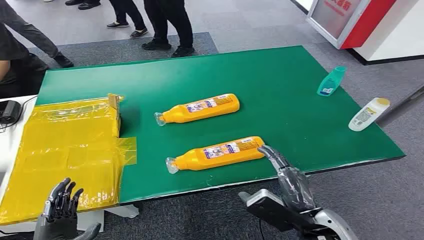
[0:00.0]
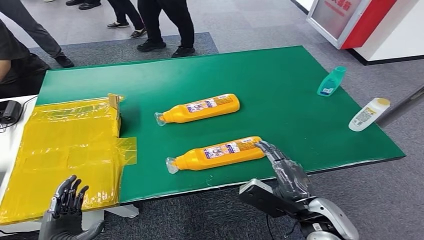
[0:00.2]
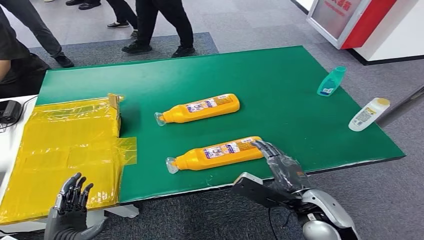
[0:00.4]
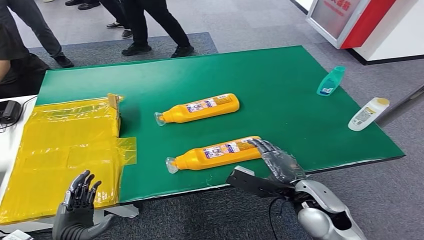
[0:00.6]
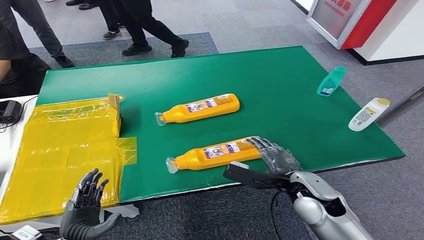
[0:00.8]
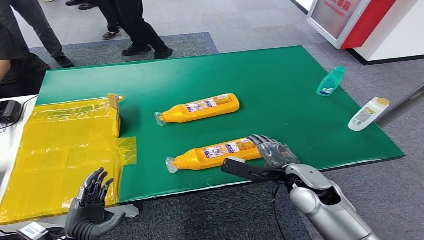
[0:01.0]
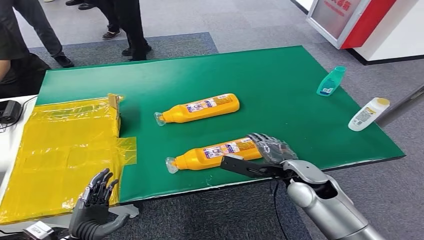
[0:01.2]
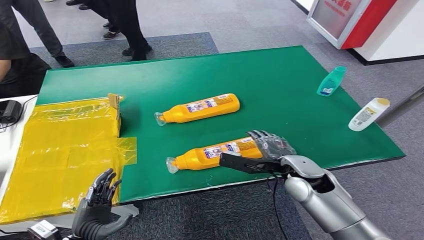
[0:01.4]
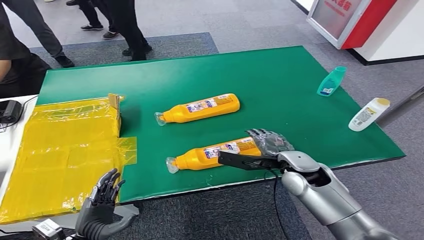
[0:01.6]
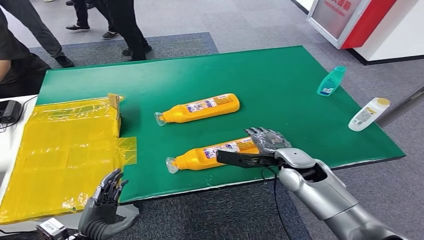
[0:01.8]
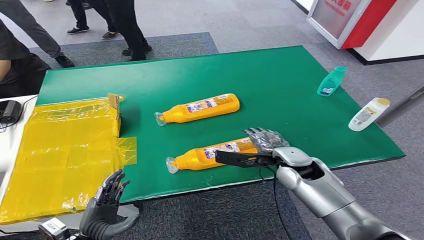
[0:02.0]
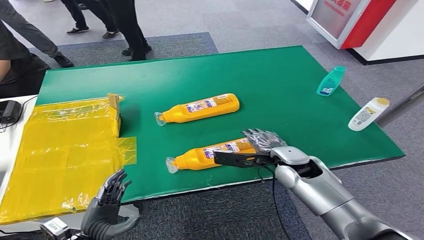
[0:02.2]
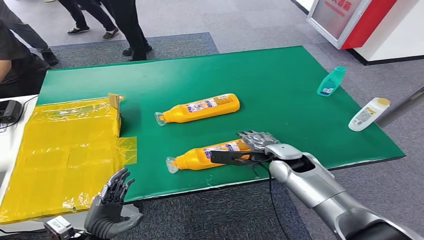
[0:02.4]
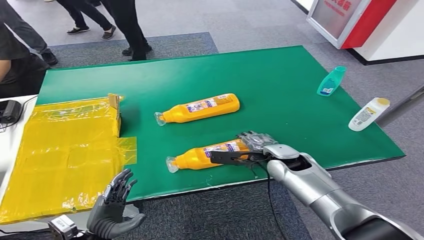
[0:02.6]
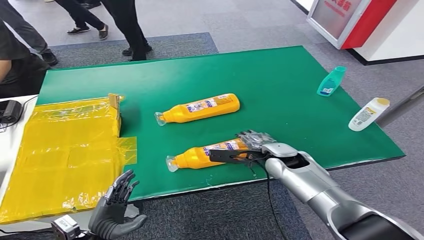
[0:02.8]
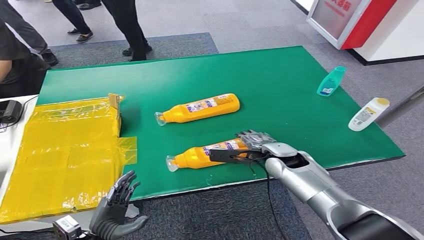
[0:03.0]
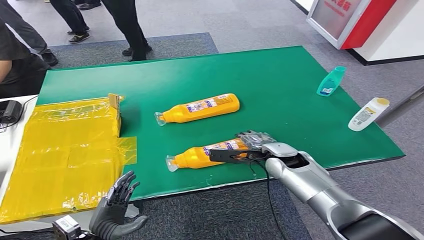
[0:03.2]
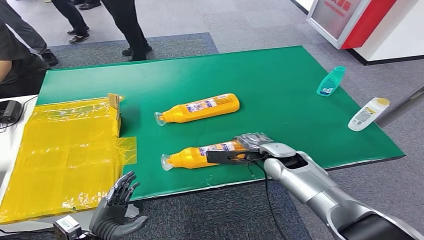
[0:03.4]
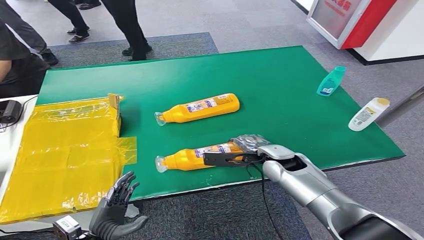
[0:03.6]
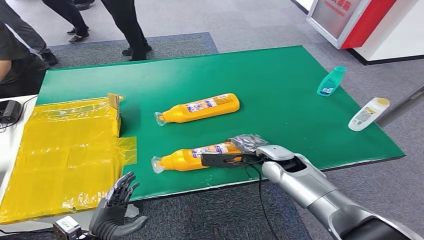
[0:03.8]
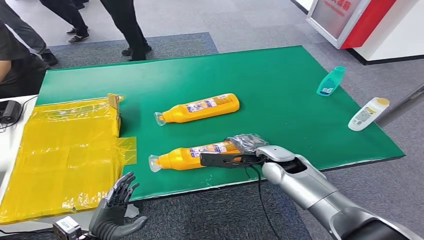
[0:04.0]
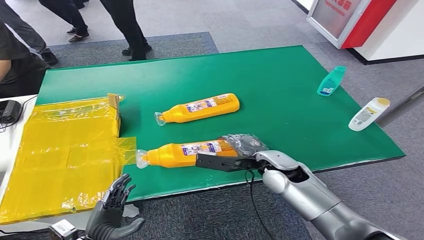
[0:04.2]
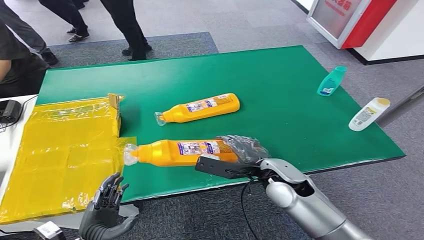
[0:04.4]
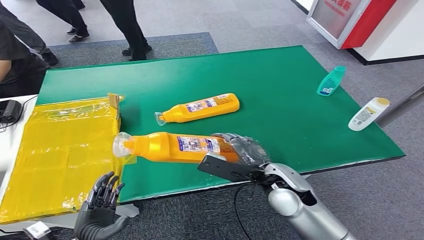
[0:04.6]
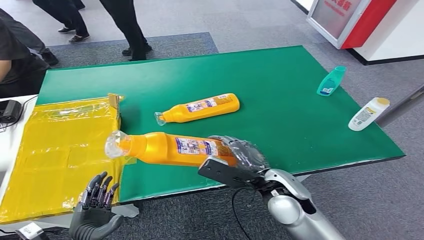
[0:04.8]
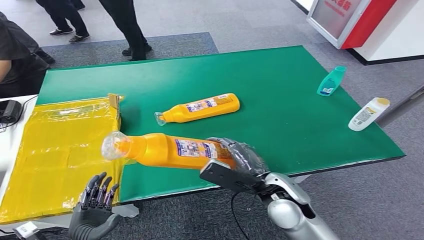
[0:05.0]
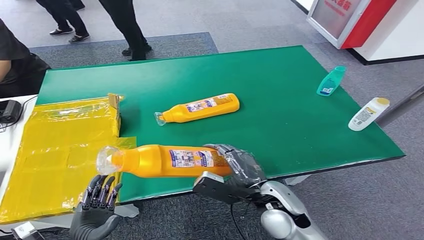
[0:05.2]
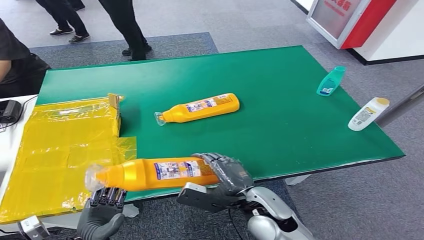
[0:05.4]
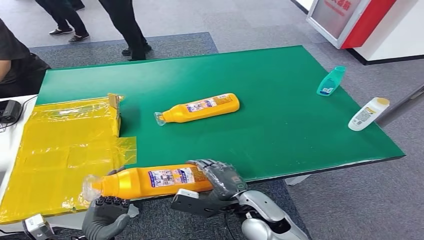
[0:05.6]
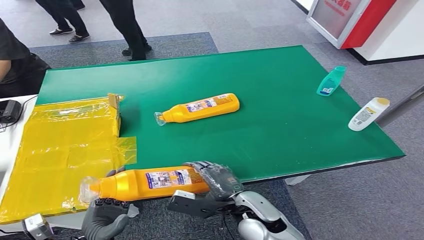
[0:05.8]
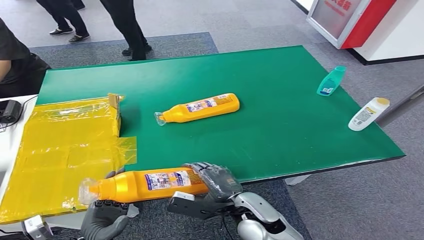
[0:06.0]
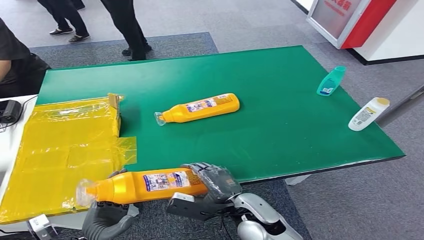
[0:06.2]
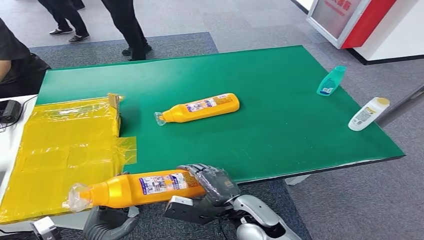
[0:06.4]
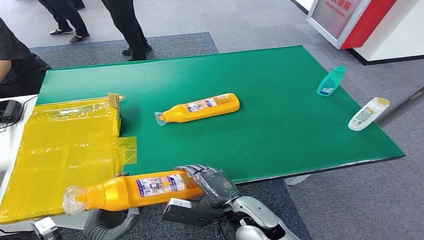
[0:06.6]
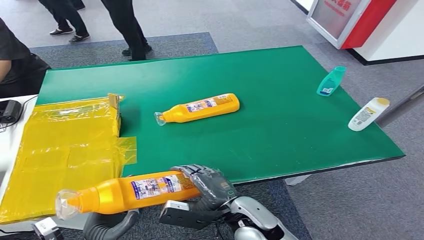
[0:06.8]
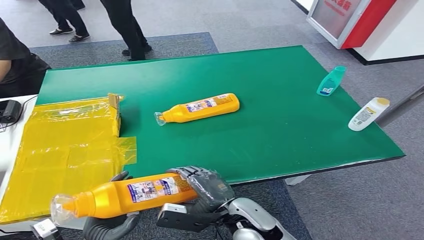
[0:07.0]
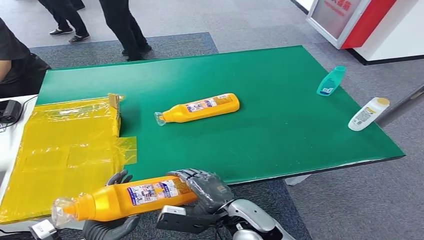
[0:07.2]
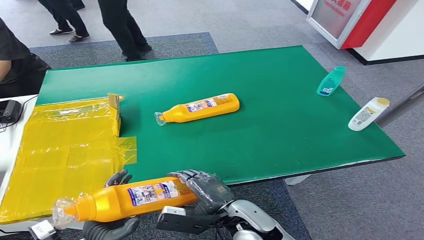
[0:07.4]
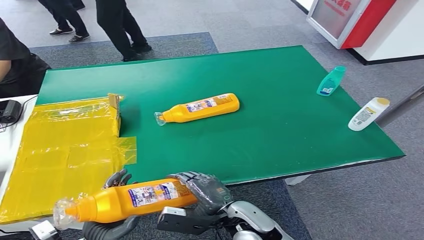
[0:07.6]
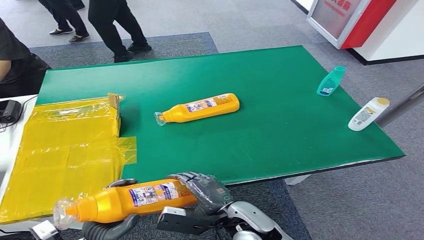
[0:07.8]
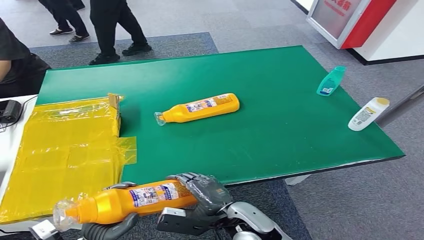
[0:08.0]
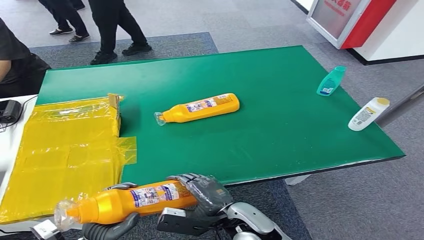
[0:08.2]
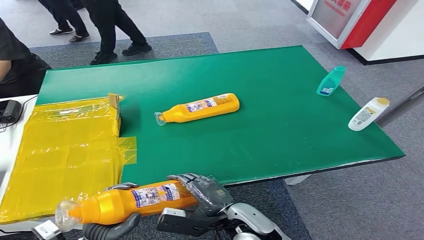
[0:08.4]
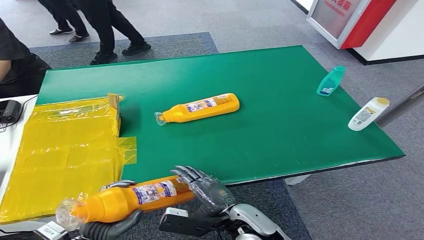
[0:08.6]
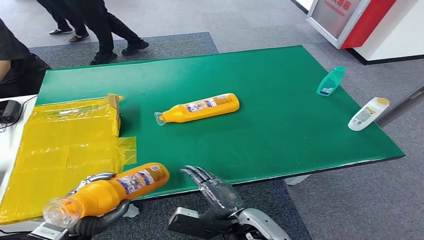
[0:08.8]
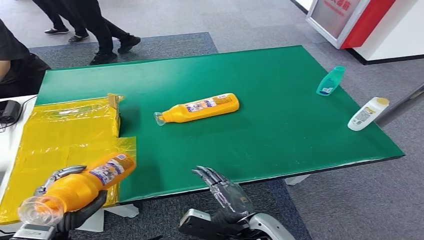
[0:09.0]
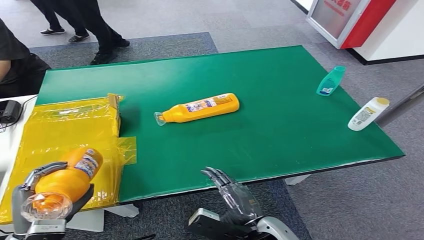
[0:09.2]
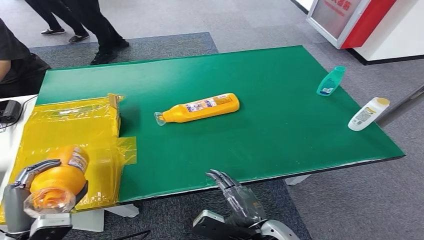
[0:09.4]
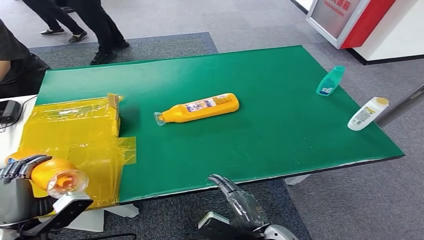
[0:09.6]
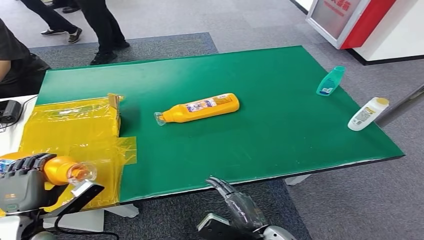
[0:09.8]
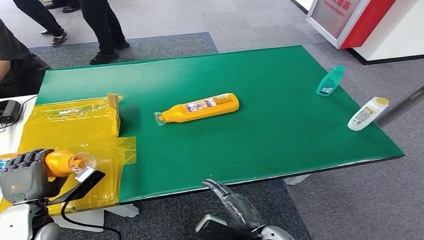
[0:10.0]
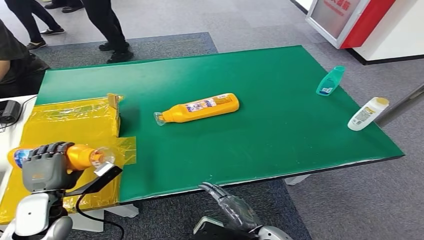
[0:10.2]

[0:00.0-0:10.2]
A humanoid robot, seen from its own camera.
Step, 0:00.0 to 0:05.0: Pick up the bottle from the table.
0:01.4 to 0:03.0: The right hand goes some 5 cm forward.
0:03.0 to 0:04.4: The right hand shifts about 5 cm backward.
0:04.4 to 0:05.8: The right hand is displaced backward, to the left and downward by approximately 10 cm.
0:05.8 to 0:07.2: The hands move only a little.
0:08.8 to 0:10.2: The right hand shifts by some 5 cm. The left hand goes approximately 10 cm forward and to the left.

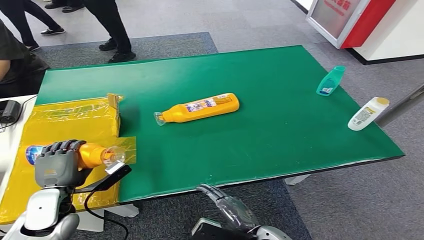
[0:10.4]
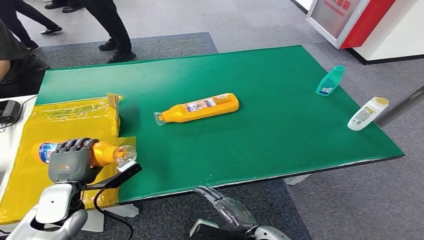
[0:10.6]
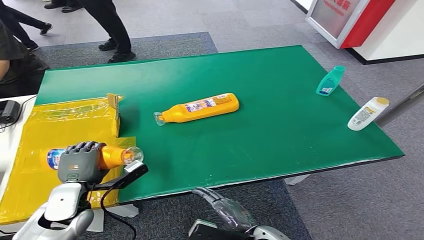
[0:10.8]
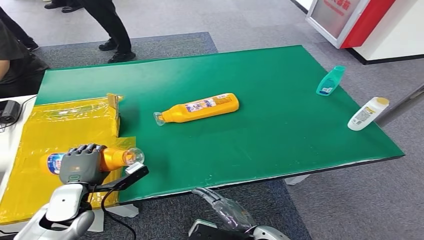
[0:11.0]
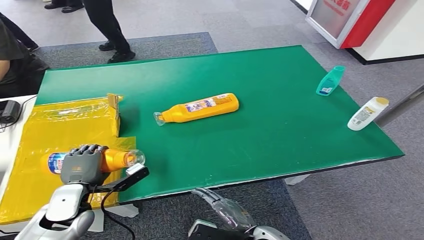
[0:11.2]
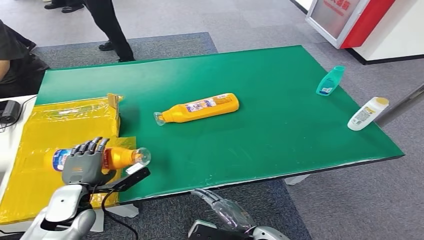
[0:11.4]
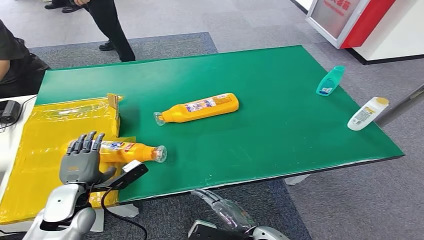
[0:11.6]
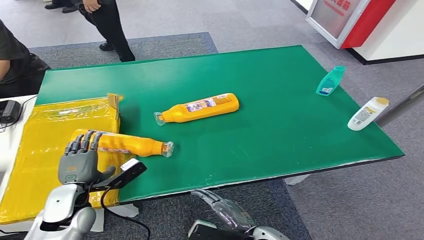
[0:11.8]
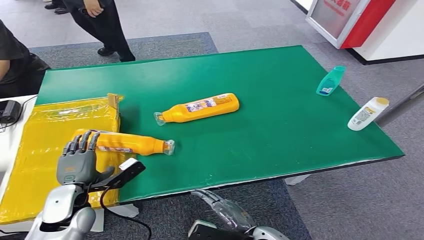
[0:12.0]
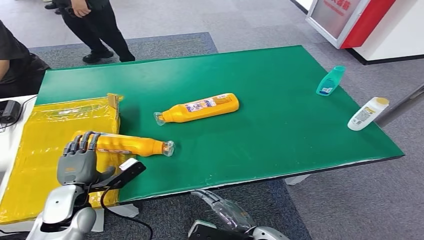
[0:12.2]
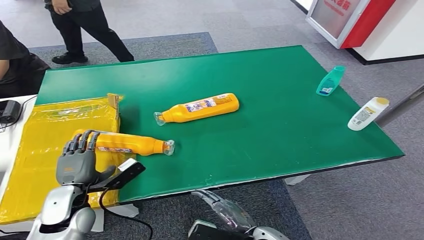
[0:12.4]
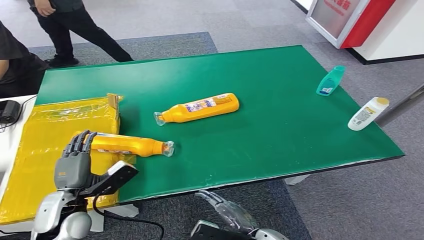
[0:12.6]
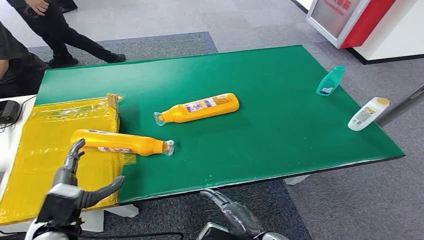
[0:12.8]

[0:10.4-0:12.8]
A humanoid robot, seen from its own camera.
Step, 0:10.4 to 0:12.8: Turn the bottle to the front side.
0:10.4 to 0:11.6: The hands stay close to where they were, moving slightly.
0:11.6 to 0:12.8: The left hand moves backward, some 5 cm.
